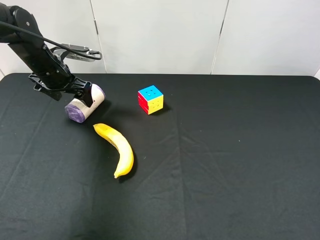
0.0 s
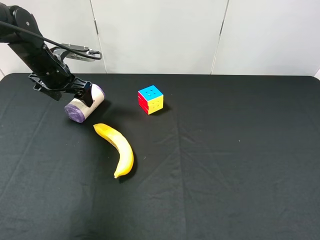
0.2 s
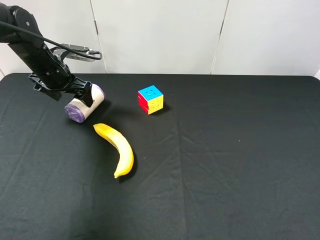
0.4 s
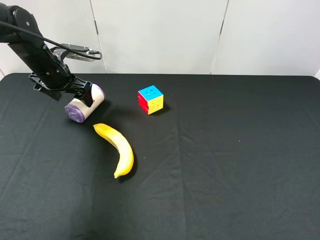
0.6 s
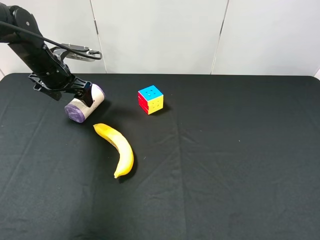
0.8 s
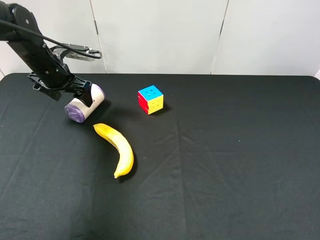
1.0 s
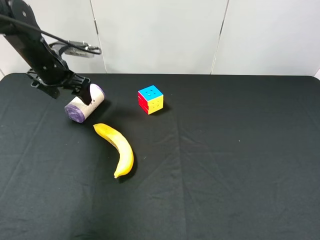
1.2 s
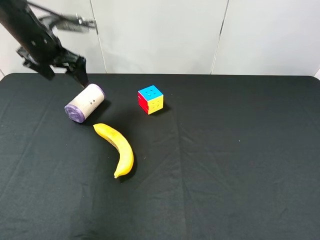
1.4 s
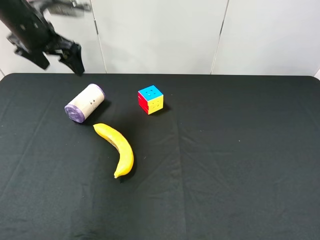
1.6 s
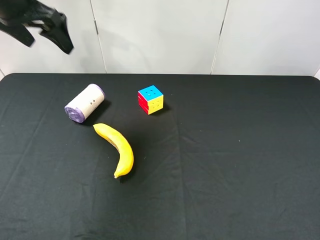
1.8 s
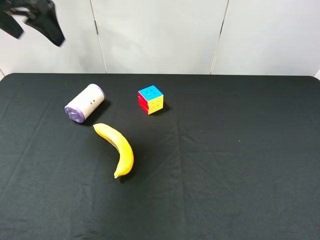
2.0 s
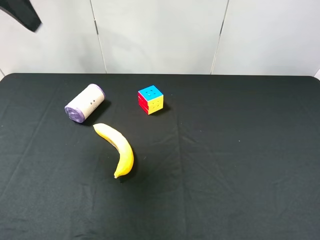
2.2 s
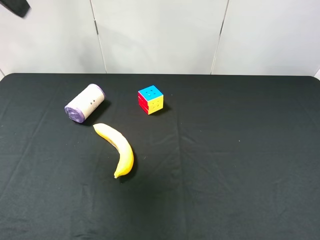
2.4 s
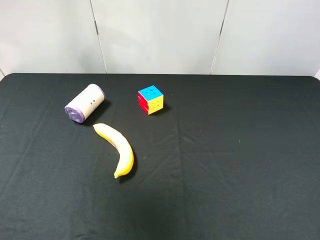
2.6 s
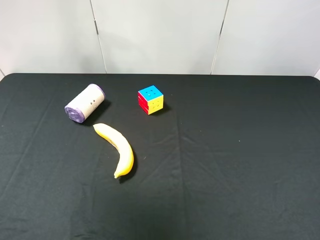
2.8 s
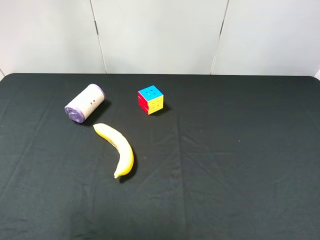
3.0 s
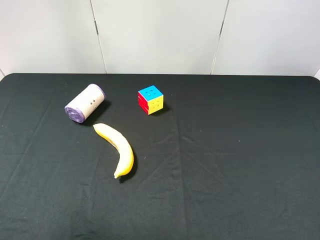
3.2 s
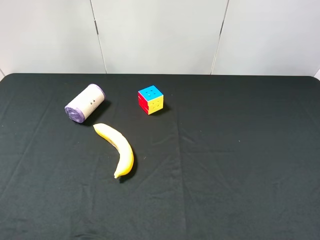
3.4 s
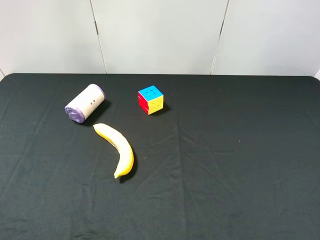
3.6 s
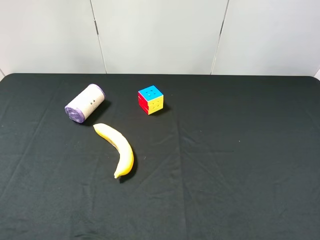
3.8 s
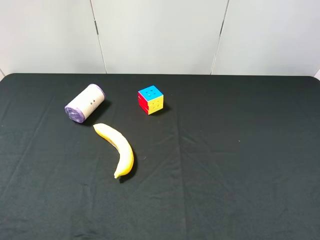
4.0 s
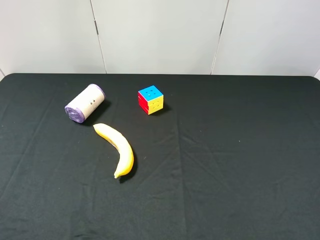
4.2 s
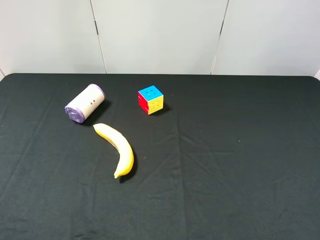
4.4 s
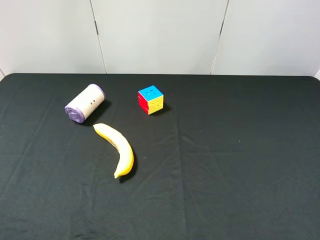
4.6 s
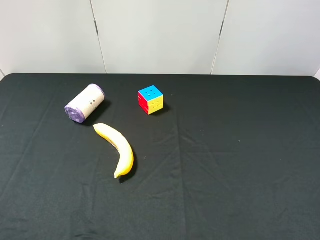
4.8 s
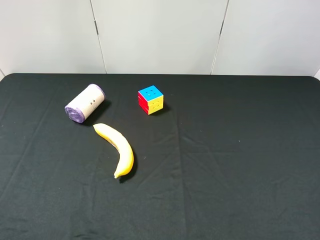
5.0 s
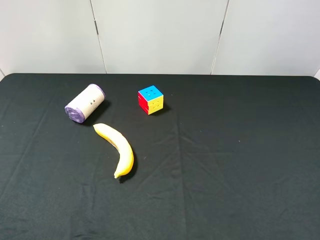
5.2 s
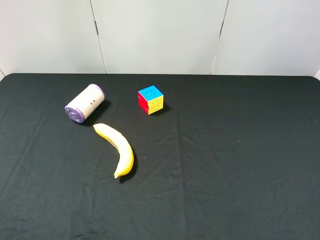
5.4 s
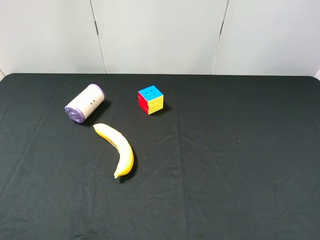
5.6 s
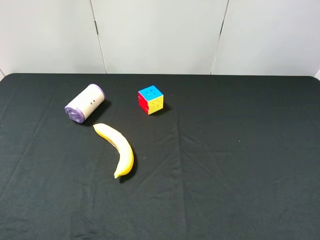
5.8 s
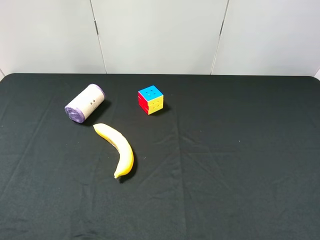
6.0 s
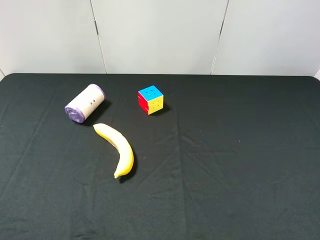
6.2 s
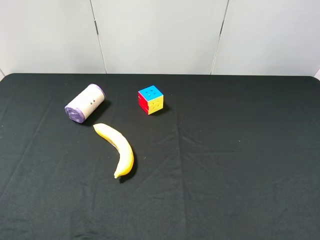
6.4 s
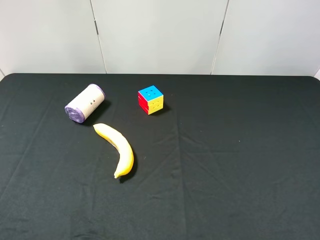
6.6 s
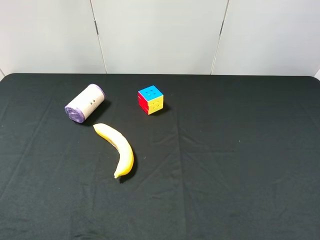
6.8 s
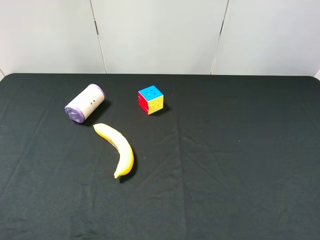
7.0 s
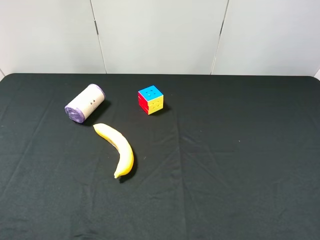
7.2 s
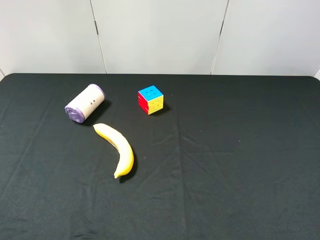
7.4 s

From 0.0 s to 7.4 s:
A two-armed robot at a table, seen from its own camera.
Task of the whole recording: use the right gripper to pick up the item and transfer it from the right gripper to the left gripper.
From 0.0 s to 1.4 s: The left gripper travels upward by approximately 10 cm.
From 1.4 s to 3.0 s: The left gripper shifts some 30 cm backward and upward.
From 6.0 s to 7.4 s: Neither gripper changes place.
